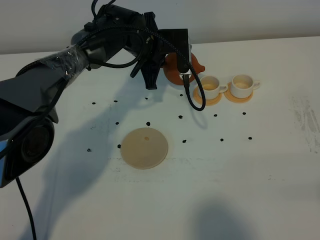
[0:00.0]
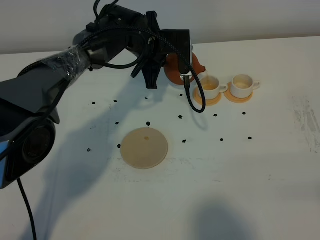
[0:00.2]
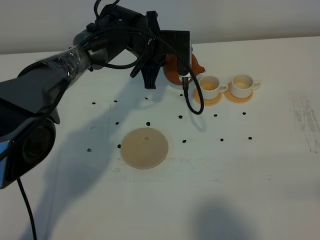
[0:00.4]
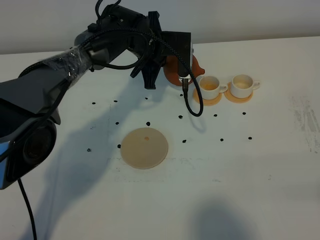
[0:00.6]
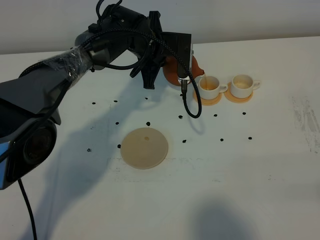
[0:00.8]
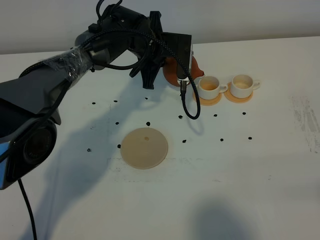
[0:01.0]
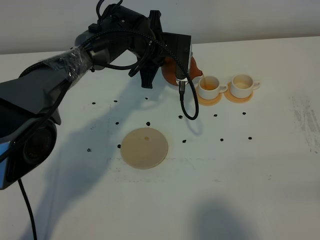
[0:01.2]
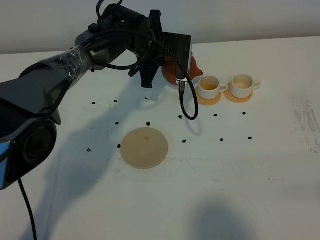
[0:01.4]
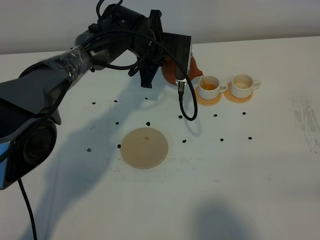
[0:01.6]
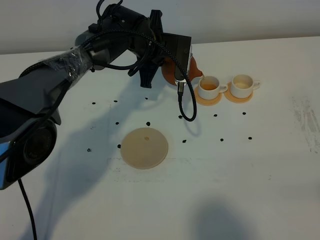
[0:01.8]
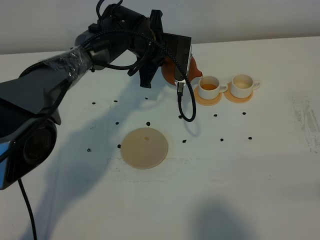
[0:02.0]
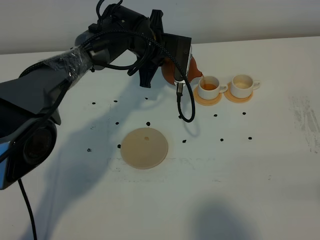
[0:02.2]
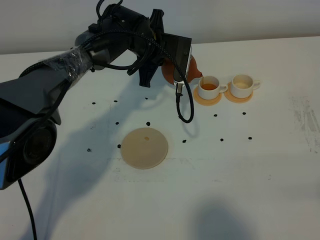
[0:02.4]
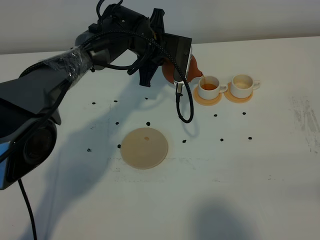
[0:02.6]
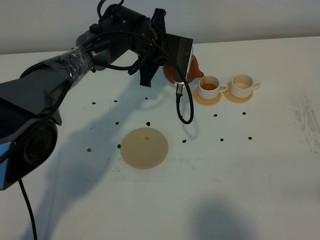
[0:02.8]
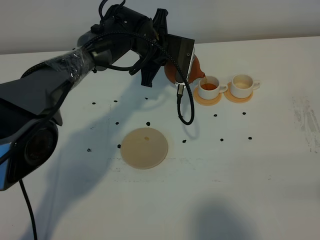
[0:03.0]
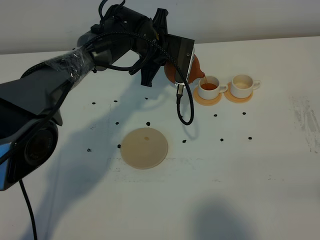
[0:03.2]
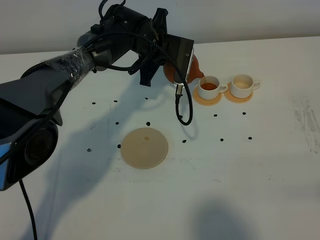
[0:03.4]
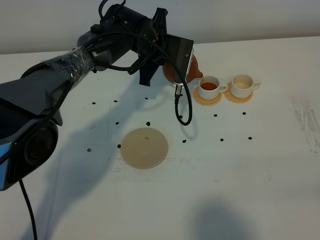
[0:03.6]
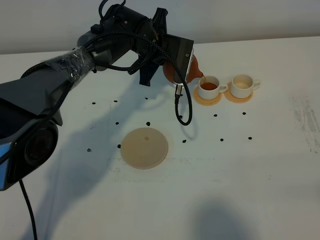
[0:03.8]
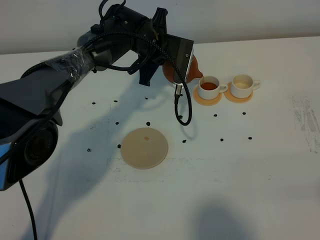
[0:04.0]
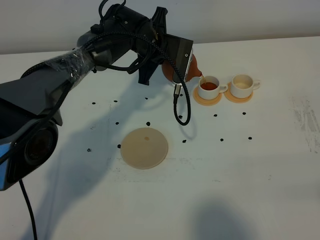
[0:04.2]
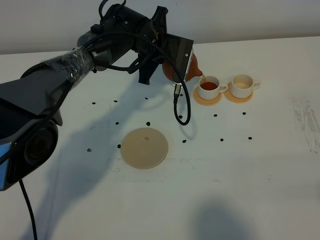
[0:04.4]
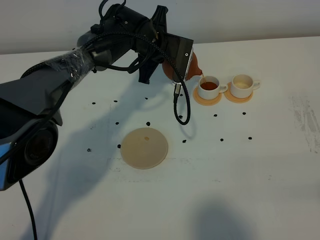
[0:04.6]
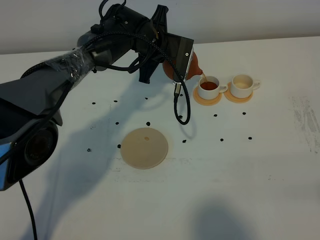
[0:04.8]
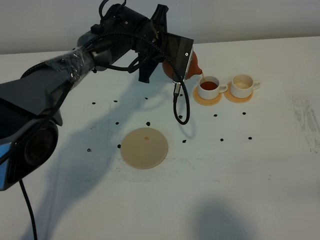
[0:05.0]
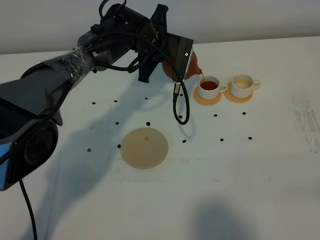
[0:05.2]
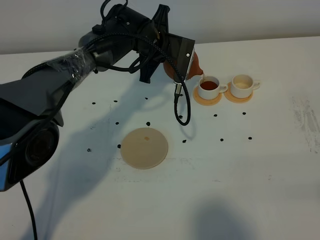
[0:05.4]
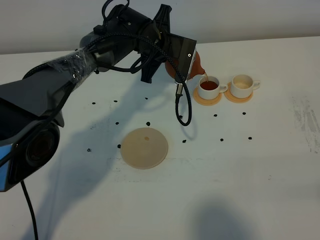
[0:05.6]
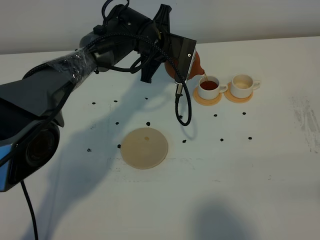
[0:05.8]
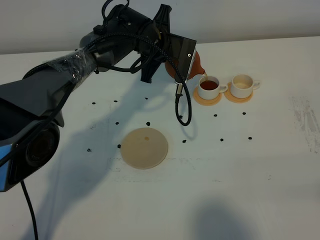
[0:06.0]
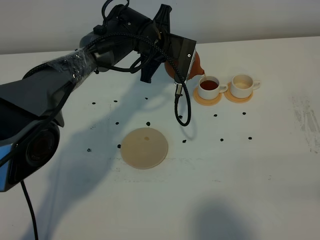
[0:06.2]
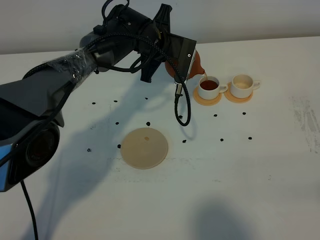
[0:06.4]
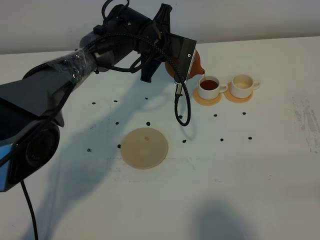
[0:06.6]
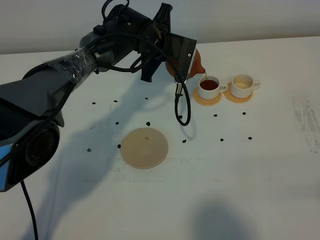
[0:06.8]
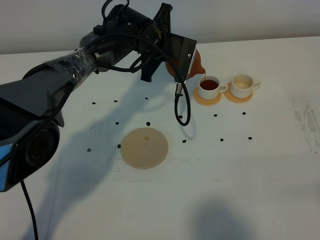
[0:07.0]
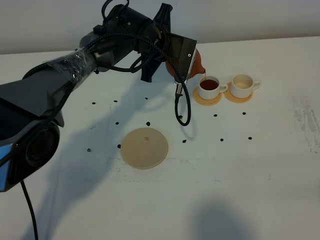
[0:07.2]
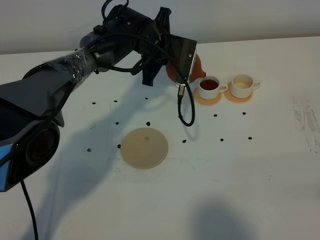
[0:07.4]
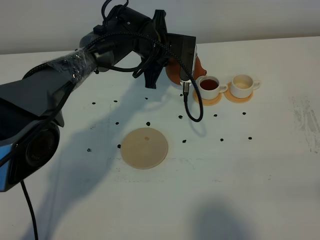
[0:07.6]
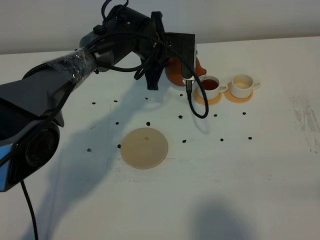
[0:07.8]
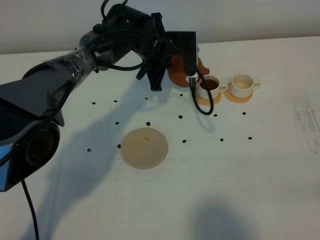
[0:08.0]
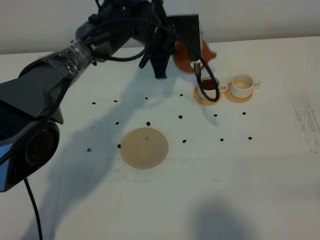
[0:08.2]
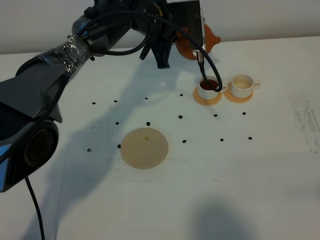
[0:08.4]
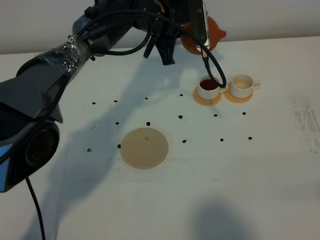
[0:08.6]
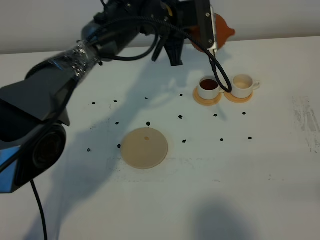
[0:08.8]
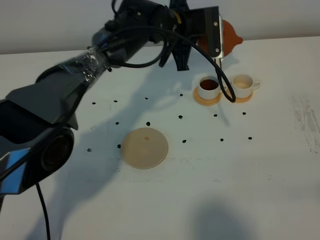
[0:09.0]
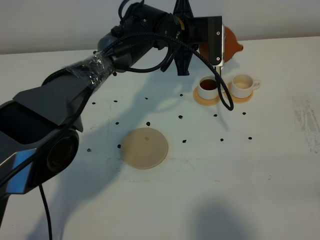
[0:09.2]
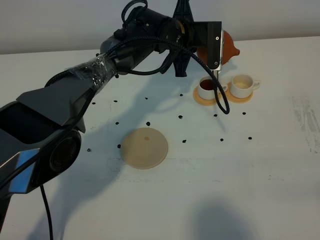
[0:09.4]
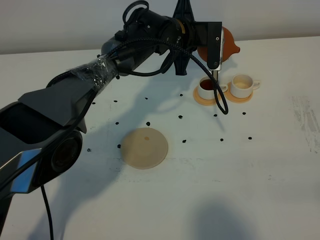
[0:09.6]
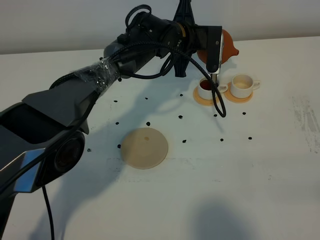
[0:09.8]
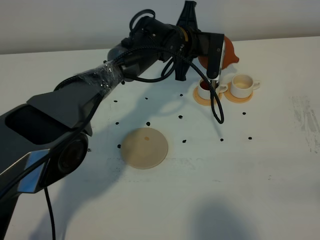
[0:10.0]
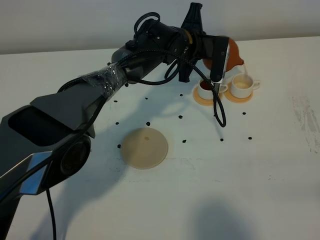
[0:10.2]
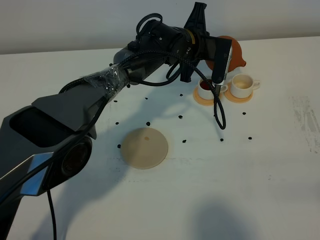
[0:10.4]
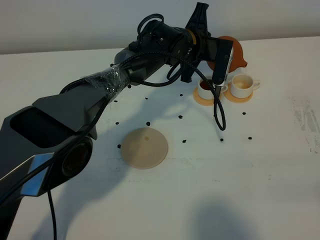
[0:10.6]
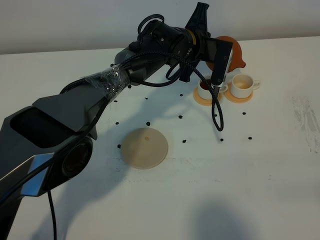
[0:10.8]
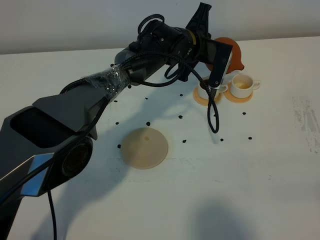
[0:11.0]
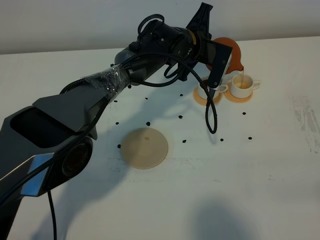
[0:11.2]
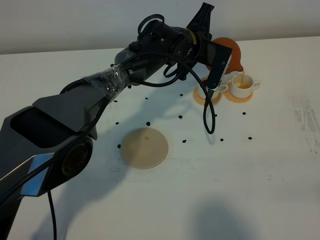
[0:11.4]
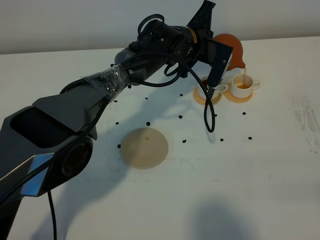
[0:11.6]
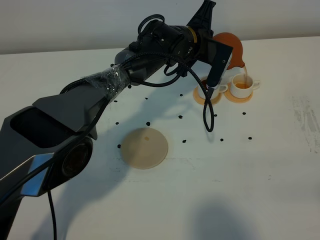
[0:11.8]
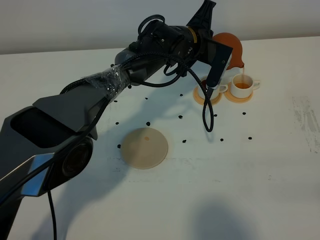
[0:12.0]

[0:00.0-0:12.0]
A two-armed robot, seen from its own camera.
Task of the whole recording: grasp the brown teapot and pour the tea into the two white teacups one by one, put the brown teapot back in its original place.
0:00.0 to 0:03.0: The grippers make only small movements.
0:03.0 to 0:04.4: Neither gripper changes place.
0:04.4 to 0:06.0: Both grippers stay about where they are.
0:06.0 to 0:07.6: There are only small adjustments of the grippers.
0:07.6 to 0:09.0: The left gripper ends up approximately 5 cm from where it was.
0:10.4 to 0:12.0: The grippers stay close to where they were, moving slightly.

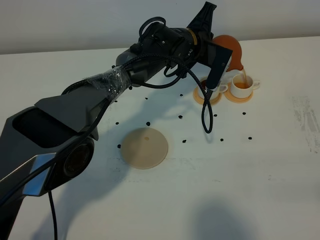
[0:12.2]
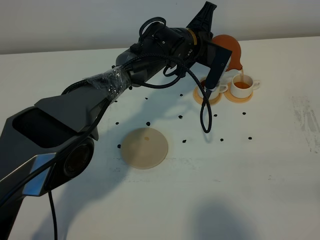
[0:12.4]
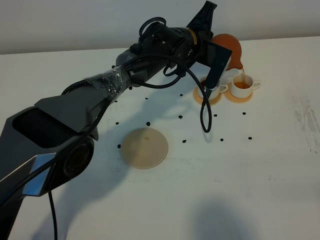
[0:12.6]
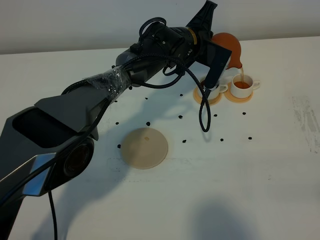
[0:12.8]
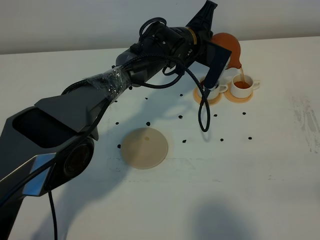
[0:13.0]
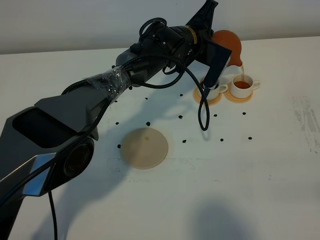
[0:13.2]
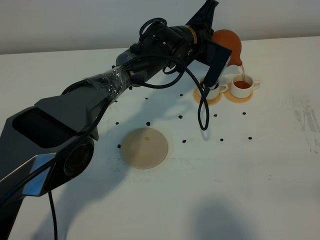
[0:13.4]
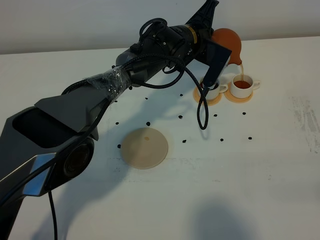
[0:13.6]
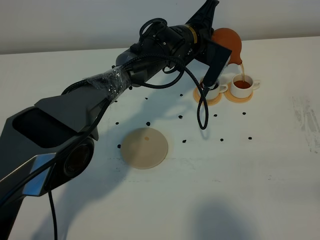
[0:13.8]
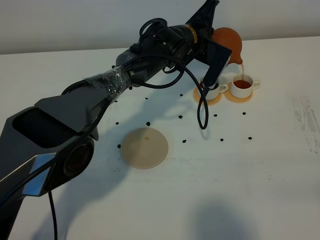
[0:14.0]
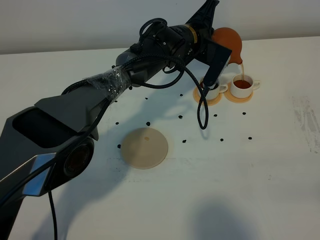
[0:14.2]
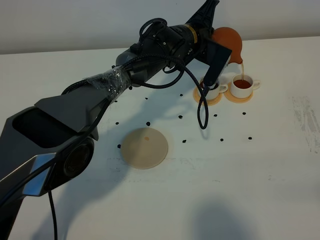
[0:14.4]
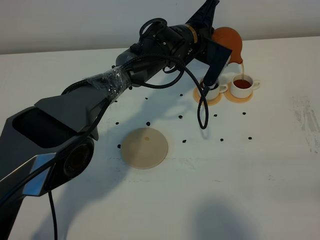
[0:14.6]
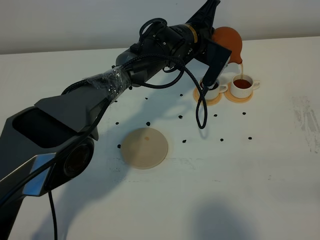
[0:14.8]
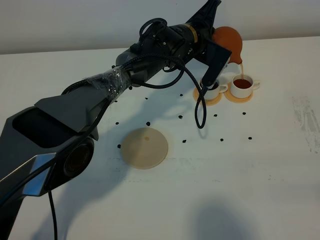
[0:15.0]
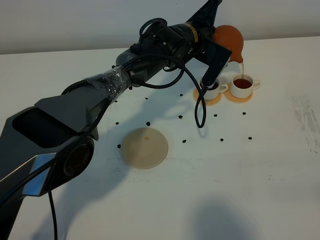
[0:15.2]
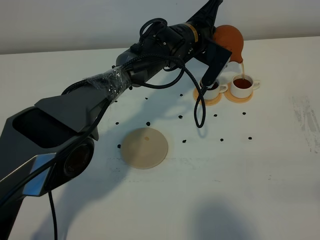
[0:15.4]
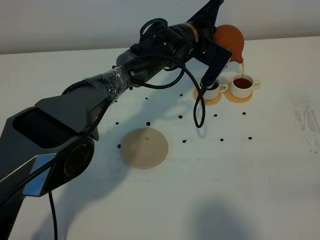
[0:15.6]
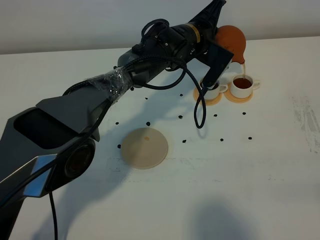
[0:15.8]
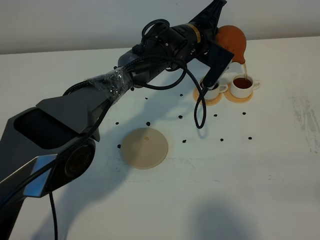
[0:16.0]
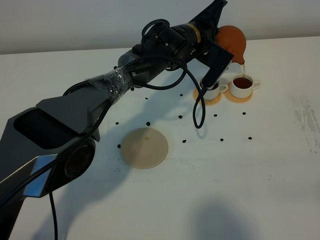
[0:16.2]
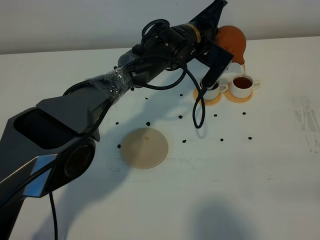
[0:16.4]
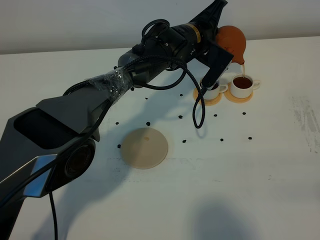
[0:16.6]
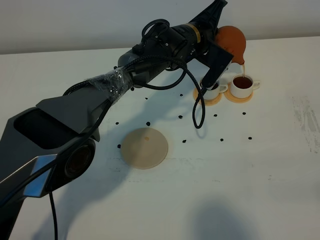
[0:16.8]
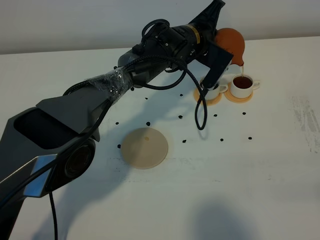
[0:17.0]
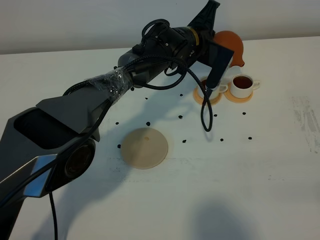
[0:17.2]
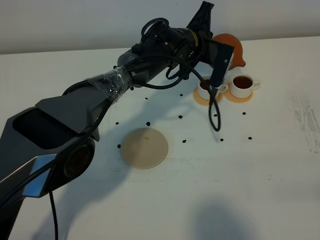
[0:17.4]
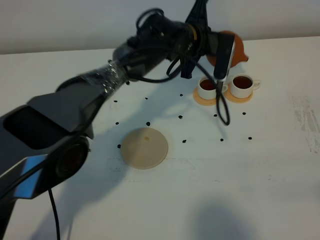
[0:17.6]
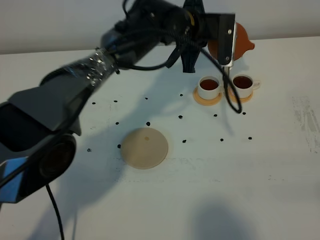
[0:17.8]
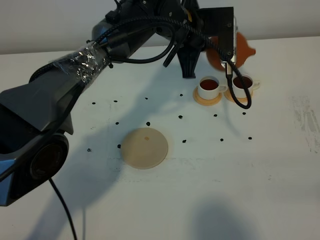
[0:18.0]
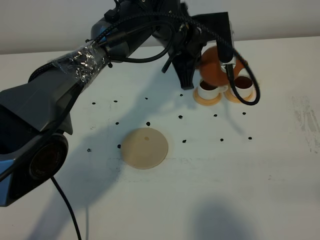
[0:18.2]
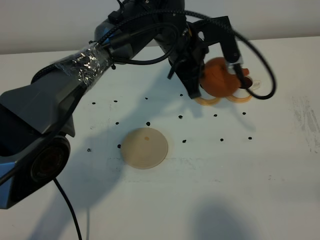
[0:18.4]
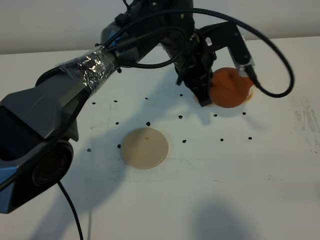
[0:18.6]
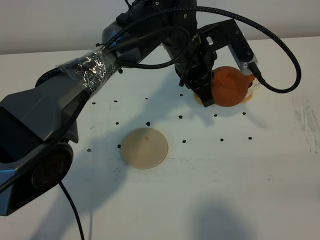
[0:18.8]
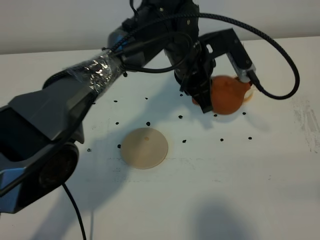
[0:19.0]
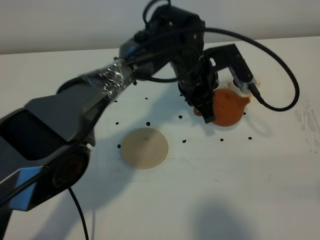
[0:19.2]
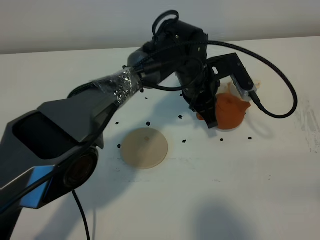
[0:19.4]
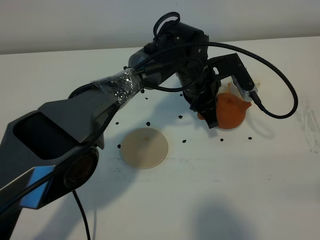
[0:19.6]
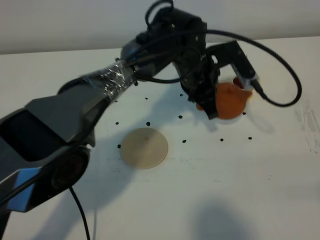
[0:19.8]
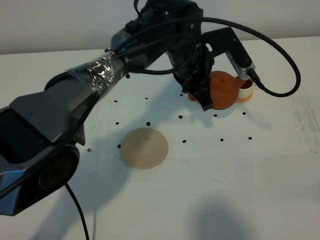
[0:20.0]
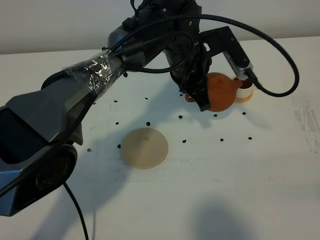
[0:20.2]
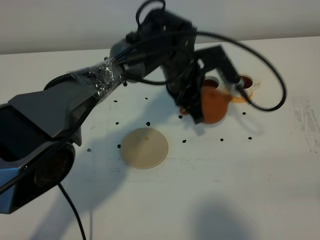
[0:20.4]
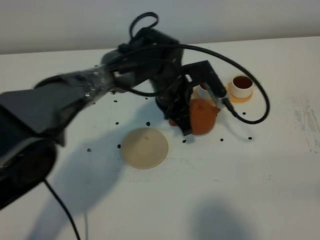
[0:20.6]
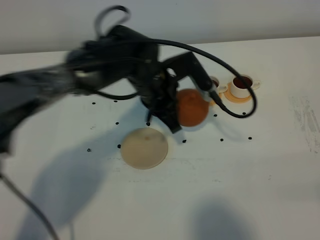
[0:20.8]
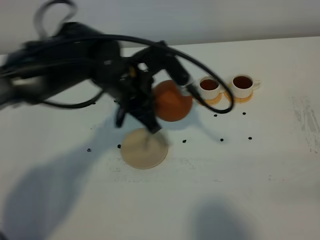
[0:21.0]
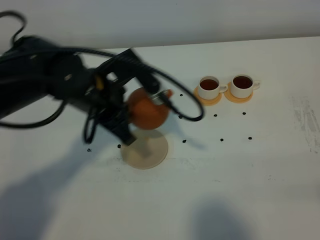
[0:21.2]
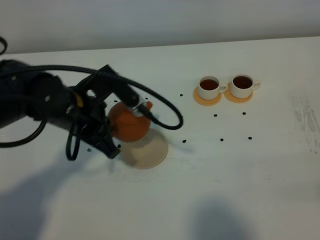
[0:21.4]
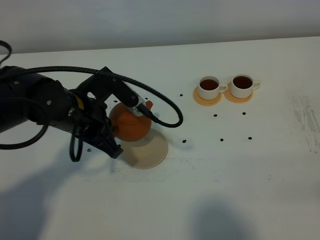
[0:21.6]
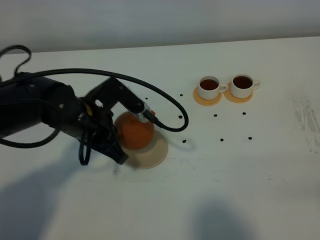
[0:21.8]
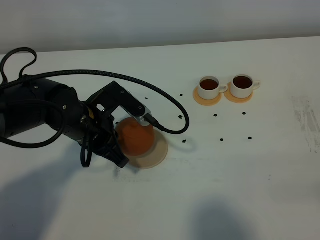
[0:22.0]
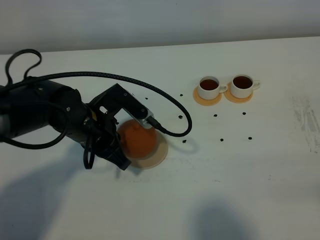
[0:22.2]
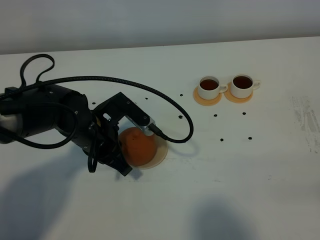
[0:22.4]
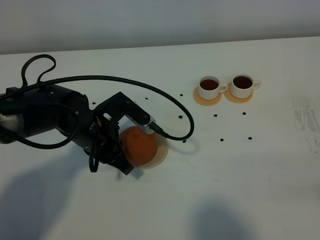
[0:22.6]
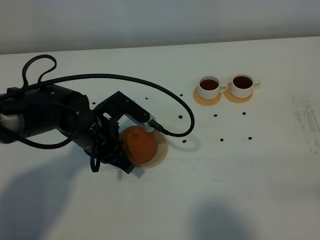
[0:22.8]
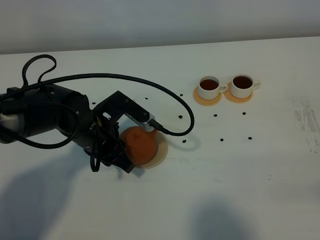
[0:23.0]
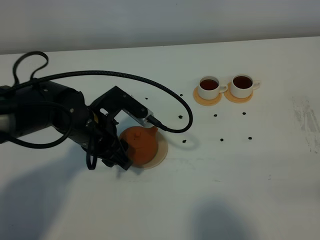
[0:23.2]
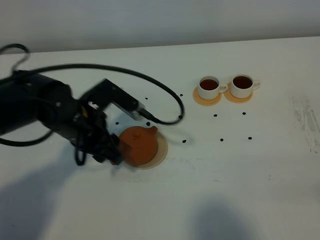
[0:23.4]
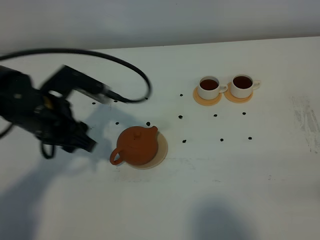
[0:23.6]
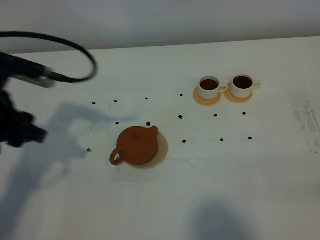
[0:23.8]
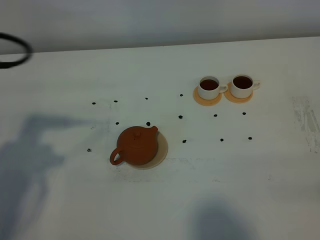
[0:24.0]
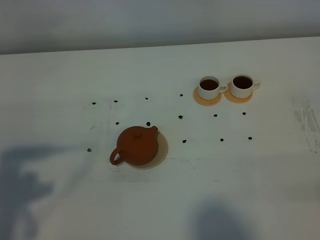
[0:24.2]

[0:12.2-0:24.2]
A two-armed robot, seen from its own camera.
Task of the whole recording: grasp the brown teapot and pour the tea into the two white teacups one by one, put the brown teapot back in its original place.
Step, 0:12.2 to 0:18.0: Pour tea into the teacup with the left gripper.
0:12.2 to 0:13.8: The grippers make only small movements.
0:13.8 to 0:15.2: Neither gripper changes place.
0:15.2 to 0:16.6: Both grippers stay put.
0:16.6 to 0:18.2: The left gripper goes approximately 5 cm backward and upward.
0:19.8 to 0:21.2: The left gripper travels to the left and backward by some 20 cm.
0:21.2 to 0:22.6: The left gripper moves downward, some 10 cm.
0:22.6 to 0:24.2: The left gripper goes roughly 30 cm backward, upward and to the left, and opens its fingers.
